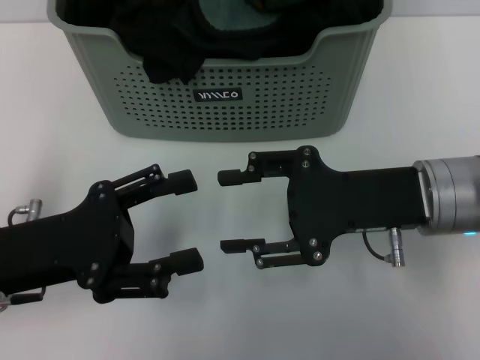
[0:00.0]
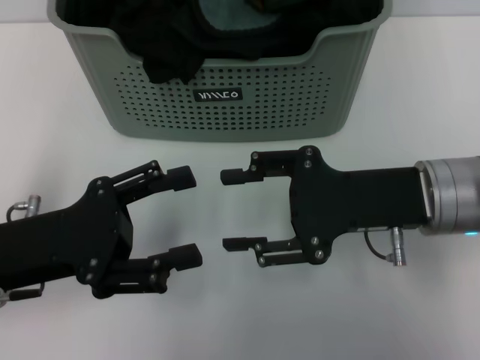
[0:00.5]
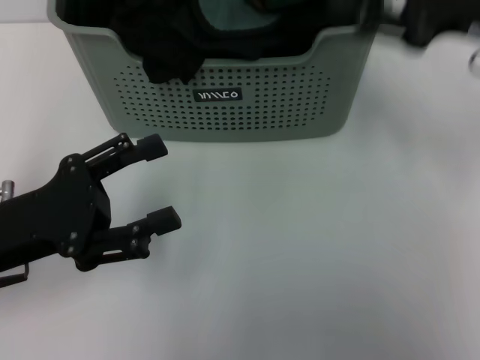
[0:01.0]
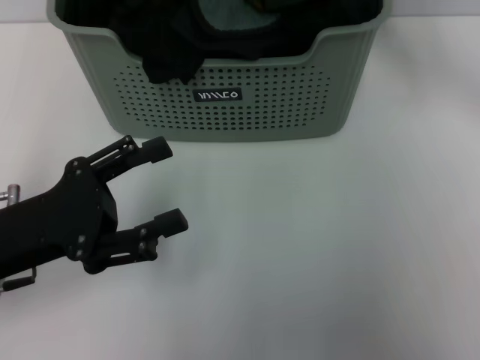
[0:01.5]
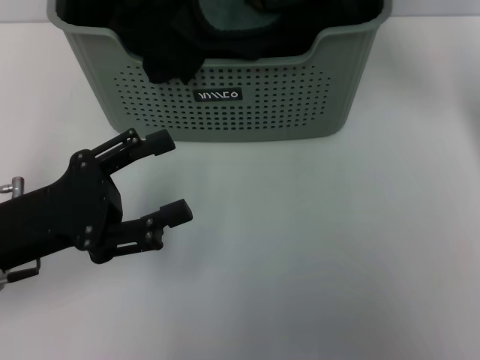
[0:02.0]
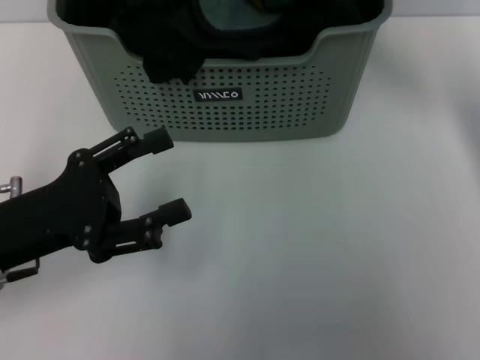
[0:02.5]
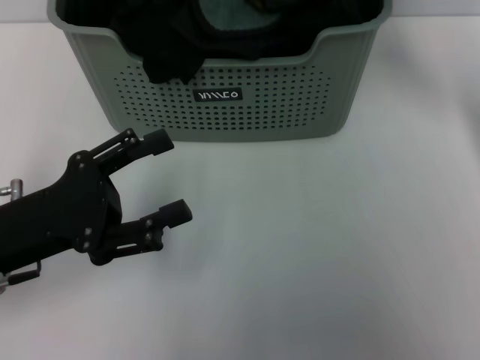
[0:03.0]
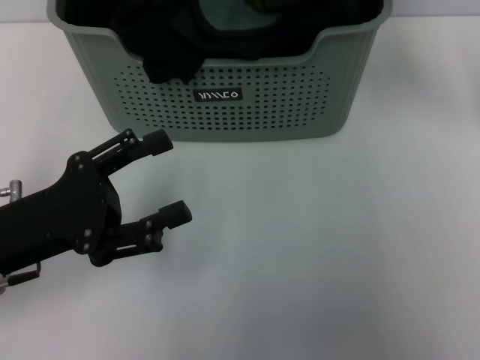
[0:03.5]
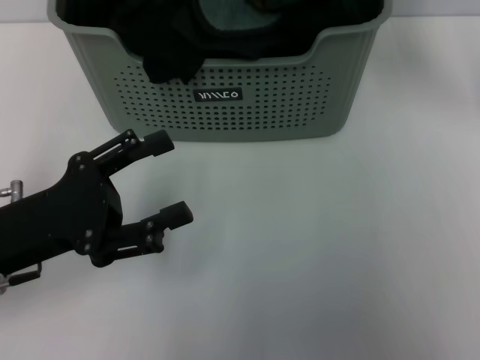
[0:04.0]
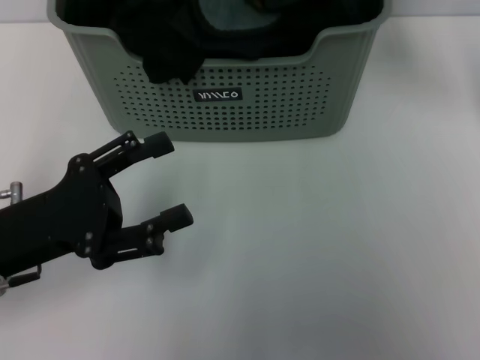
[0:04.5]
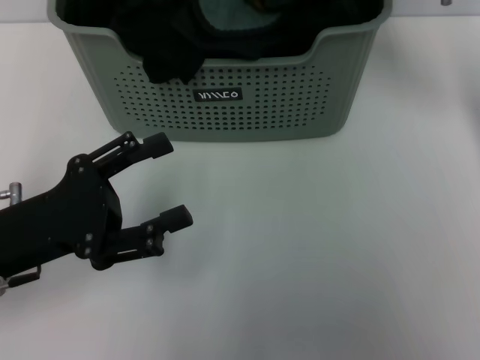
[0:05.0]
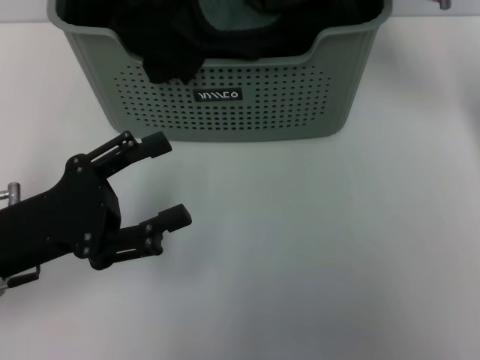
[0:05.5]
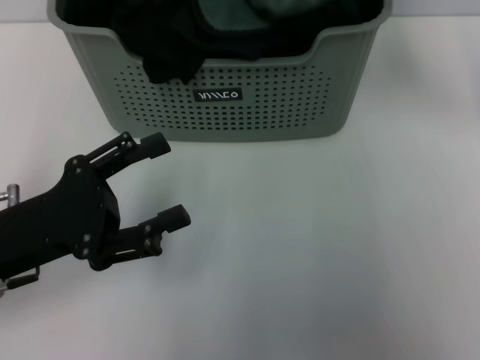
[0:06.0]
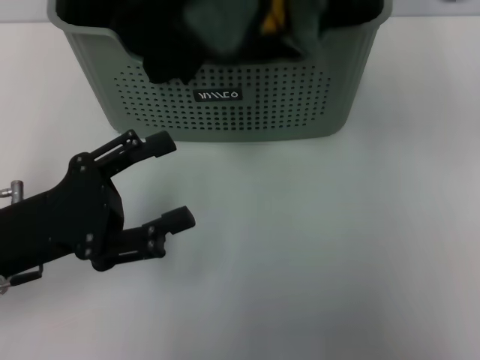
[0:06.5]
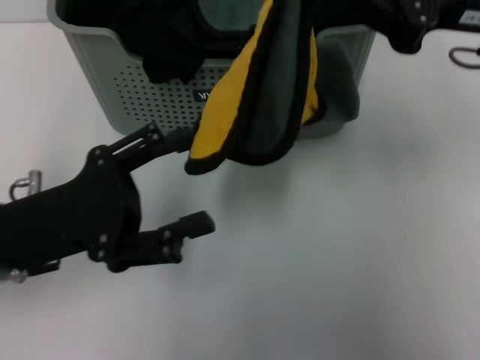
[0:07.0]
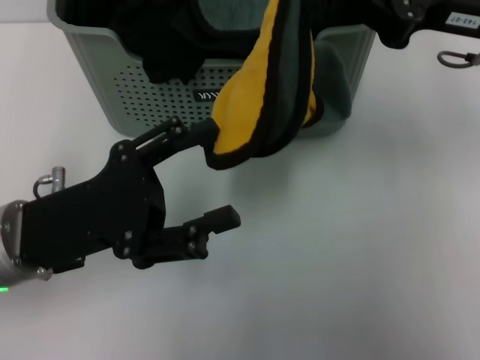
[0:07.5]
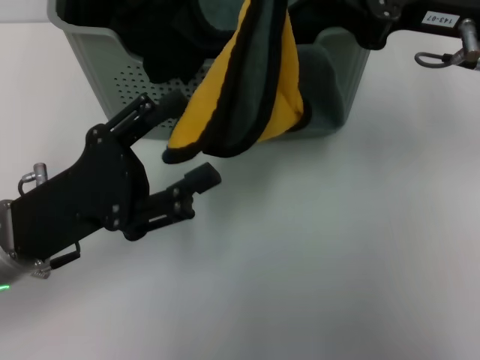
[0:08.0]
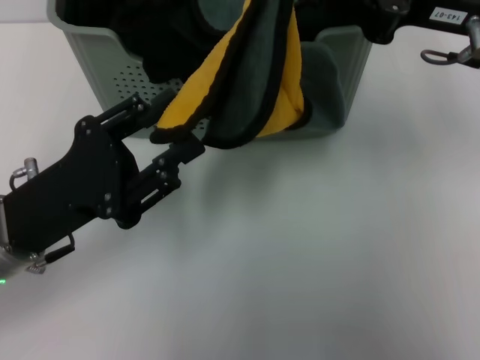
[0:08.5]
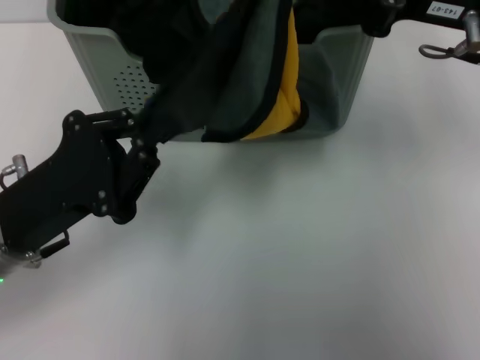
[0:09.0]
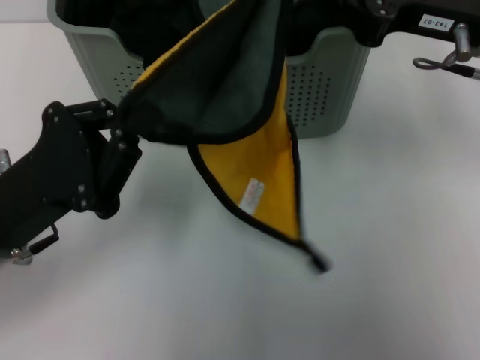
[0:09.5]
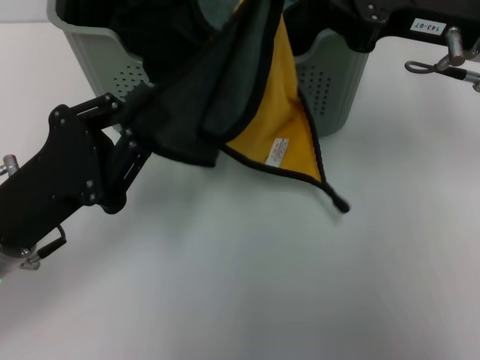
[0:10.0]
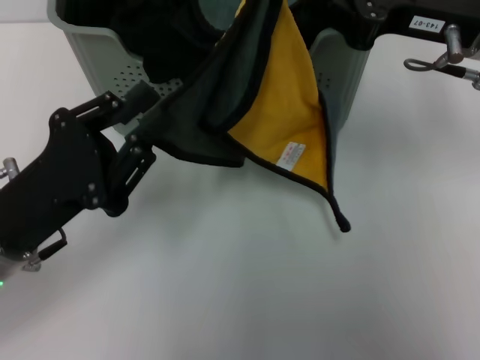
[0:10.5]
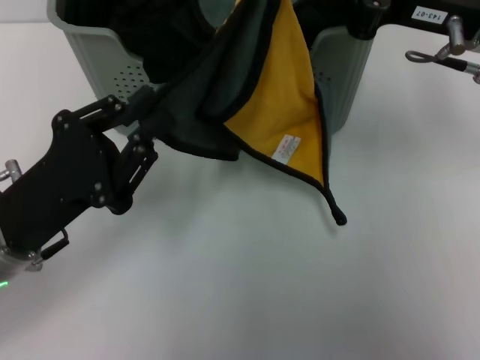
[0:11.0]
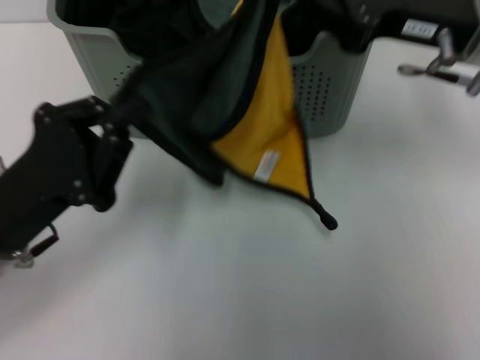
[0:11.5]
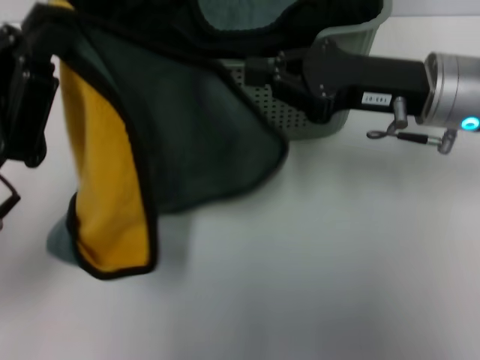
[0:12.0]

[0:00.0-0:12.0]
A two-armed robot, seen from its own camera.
Task of the whole recording: pick up the towel from the storage box and lay it flat on the table.
Step, 0:00.0 to 0:05.5: Pick up a towel with the right gripper.
Step, 0:06.5 to 0:08.5: Spread the towel flat with the right gripper.
0:00.0 to 0:02.0: The right gripper is displaced forward and upward by some 20 cm.
0:06.0 to 0:08.0: The right gripper is displaced backward by approximately 10 cm.
0:08.0 to 0:10.0: The left gripper closes its fingers.
0:10.0 to 0:12.0: The right gripper travels downward by about 5 cm.

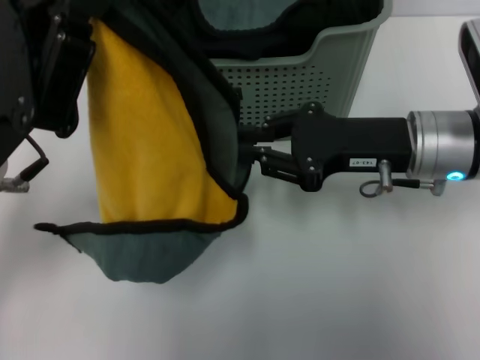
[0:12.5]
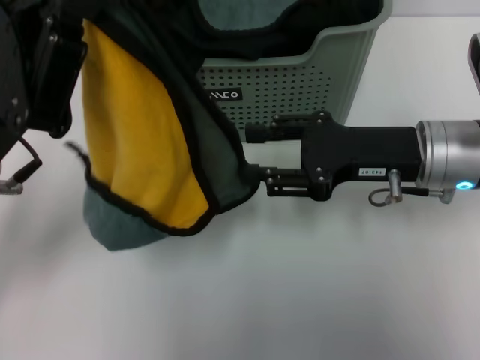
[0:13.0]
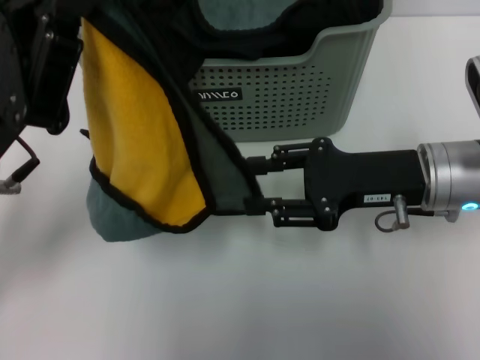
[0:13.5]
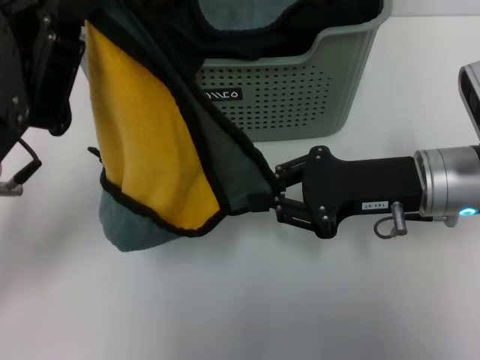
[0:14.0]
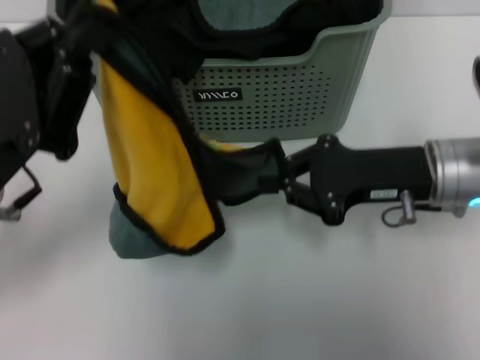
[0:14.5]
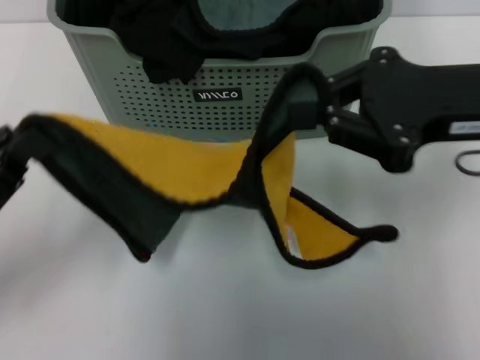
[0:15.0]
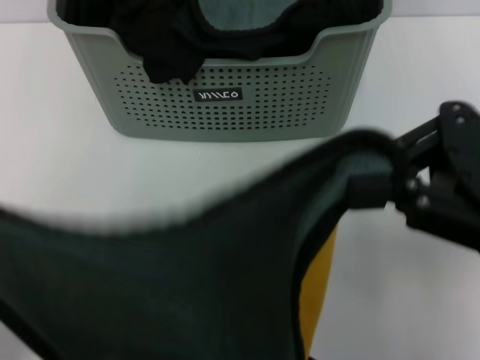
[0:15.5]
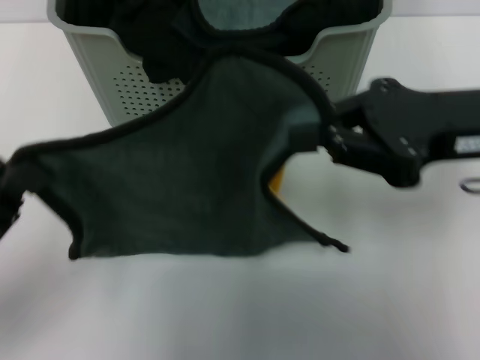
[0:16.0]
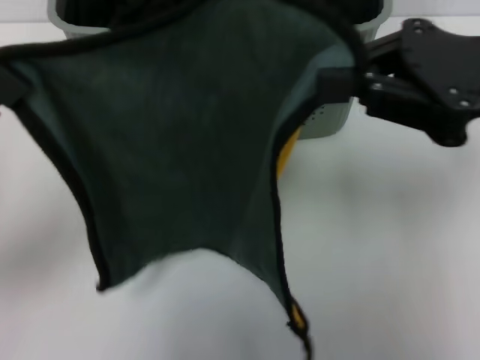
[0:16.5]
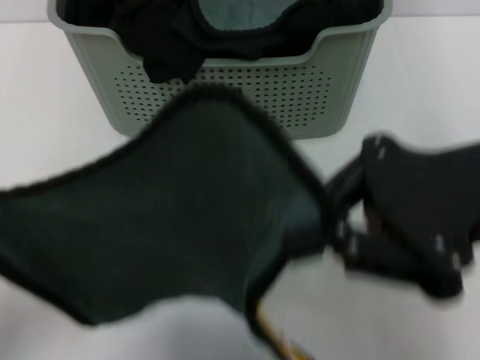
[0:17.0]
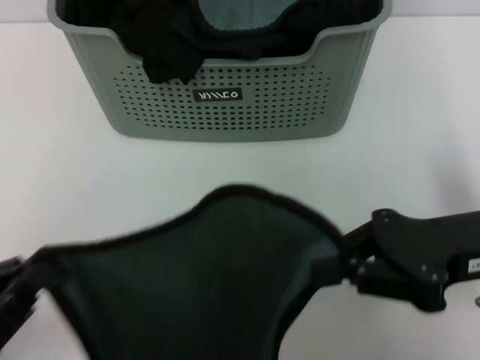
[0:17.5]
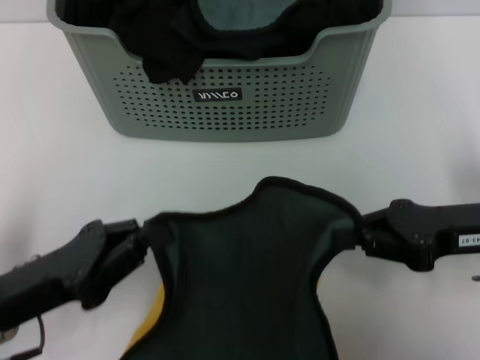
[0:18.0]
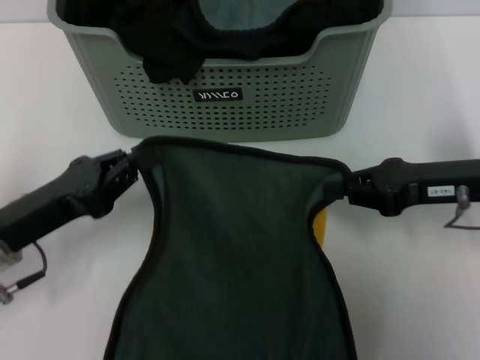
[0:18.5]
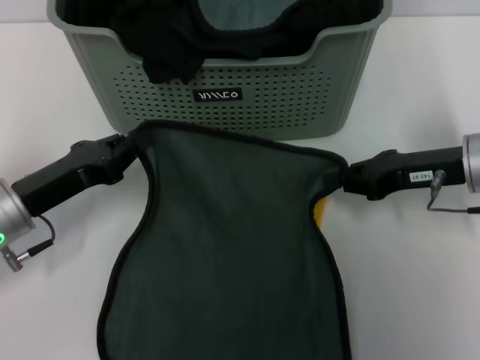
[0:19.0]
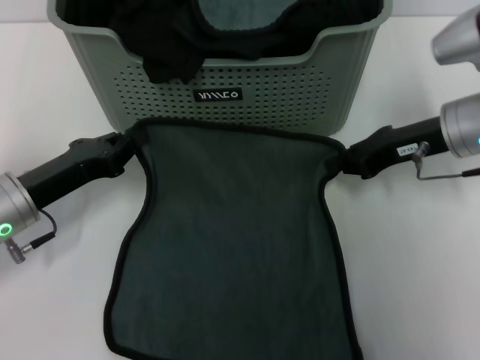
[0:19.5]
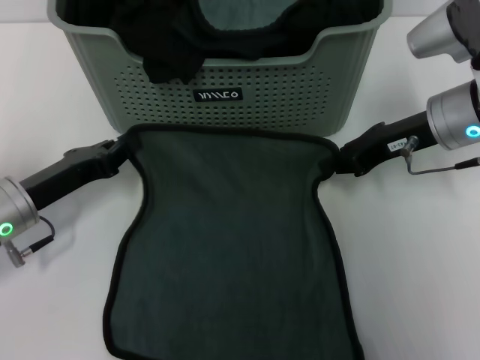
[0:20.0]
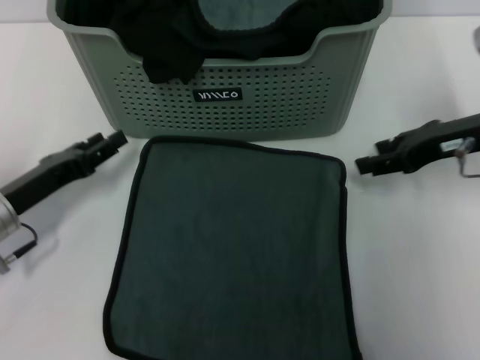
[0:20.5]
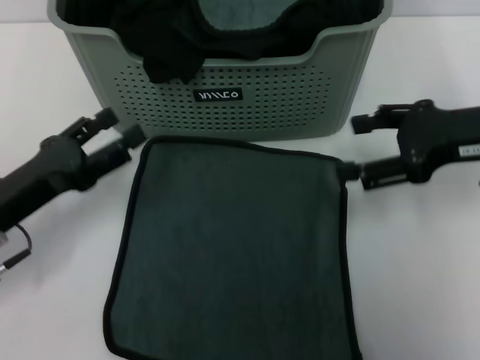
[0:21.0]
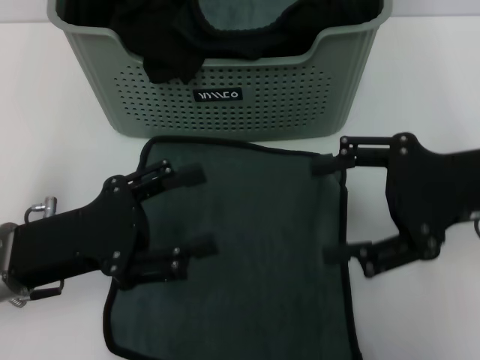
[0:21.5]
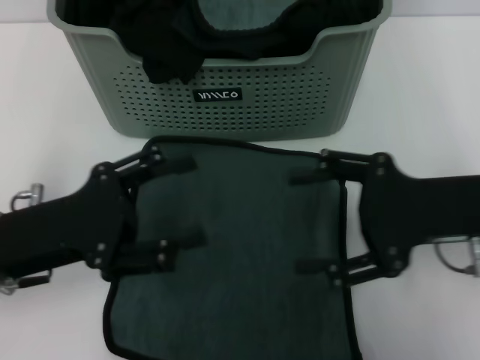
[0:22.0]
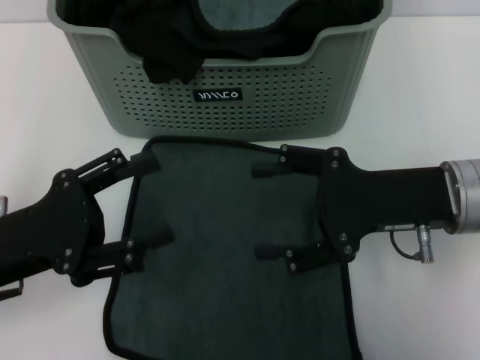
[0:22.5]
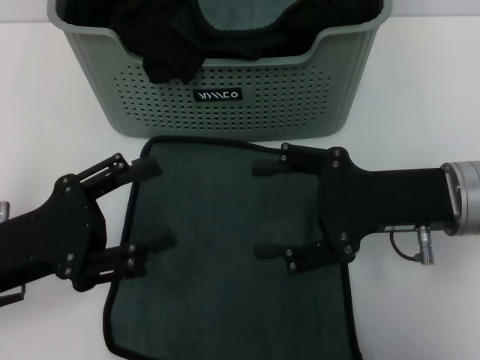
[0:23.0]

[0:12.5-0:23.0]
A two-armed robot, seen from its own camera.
Task of the whole recording: pick up the towel from the storage box and lay it flat on the table.
Step, 0:12.5 to 0:20.0: Spread the towel flat with the left gripper.
0:12.5 to 0:14.5: The right gripper opens and closes again.
0:14.5 to 0:16.5: The left gripper shifts roughly 5 cm to the left, and reaches approximately 15 cm backward, then returns; the right gripper goes roughly 15 cm upward.
0:16.5 to 0:19.0: The right gripper goes about 15 cm downward. The left gripper moves downward and forward, approximately 10 cm.
0:19.0 to 0:21.0: The left gripper opens up; the right gripper travels upward by some 5 cm, and opens up.
0:21.0 to 0:23.0: The right gripper heads to the left and downward, covering some 10 cm.
